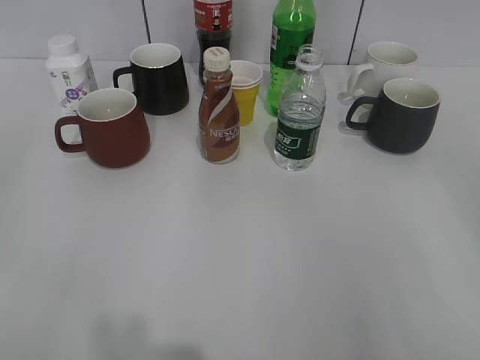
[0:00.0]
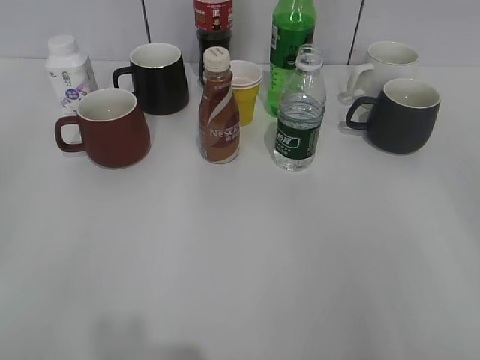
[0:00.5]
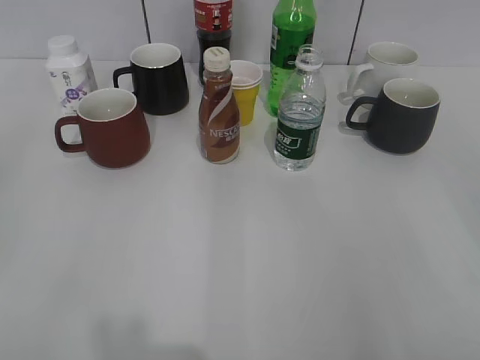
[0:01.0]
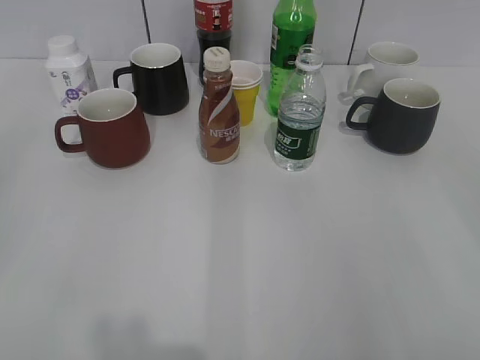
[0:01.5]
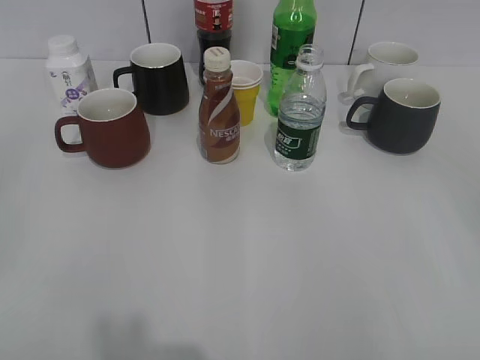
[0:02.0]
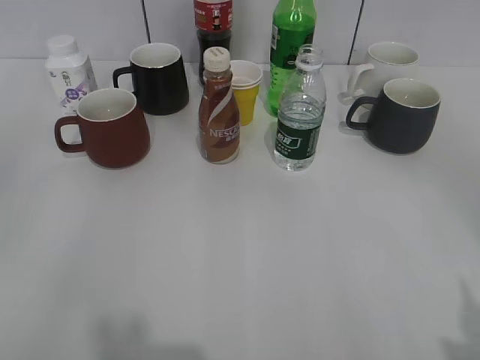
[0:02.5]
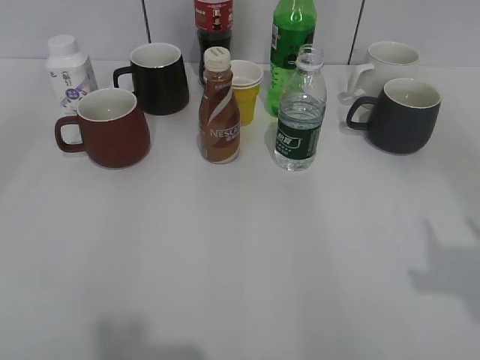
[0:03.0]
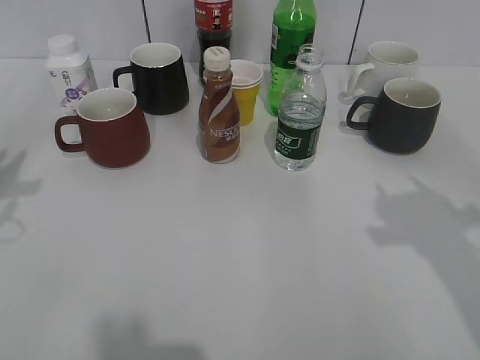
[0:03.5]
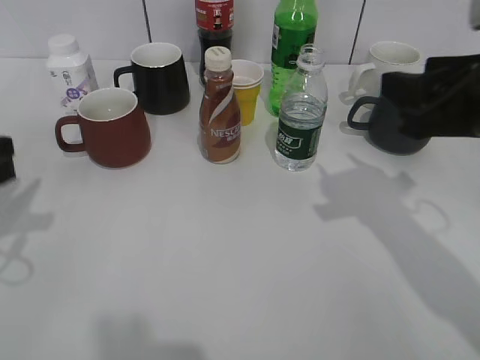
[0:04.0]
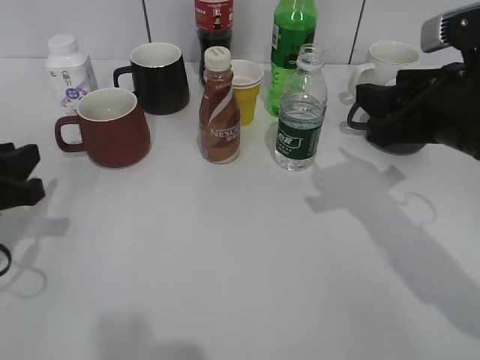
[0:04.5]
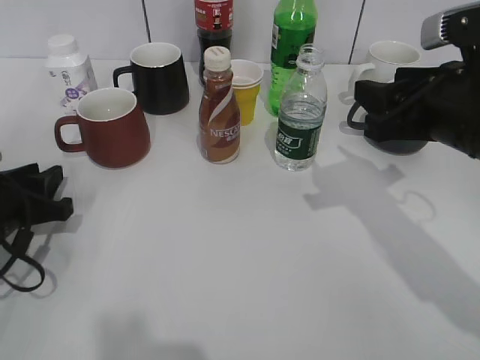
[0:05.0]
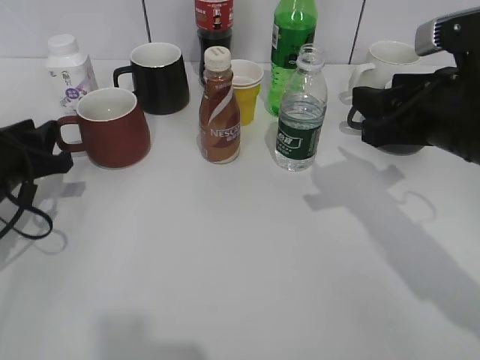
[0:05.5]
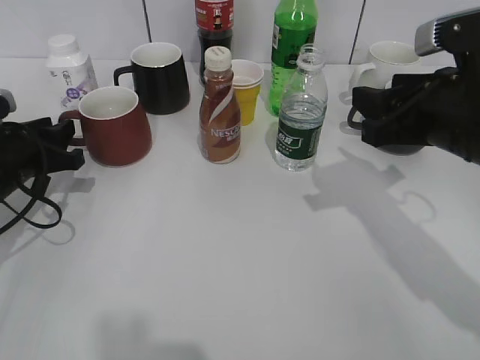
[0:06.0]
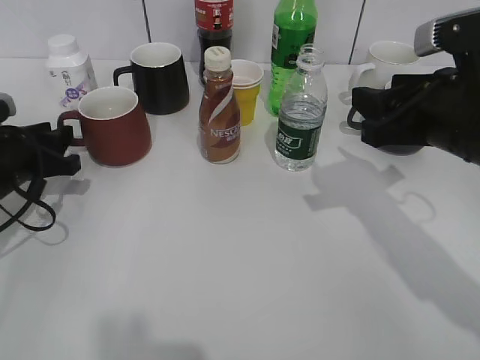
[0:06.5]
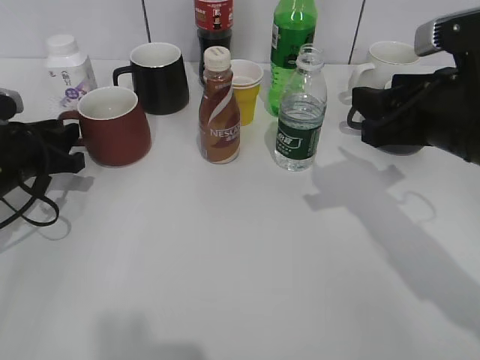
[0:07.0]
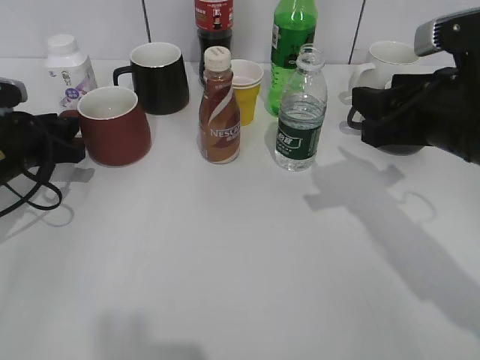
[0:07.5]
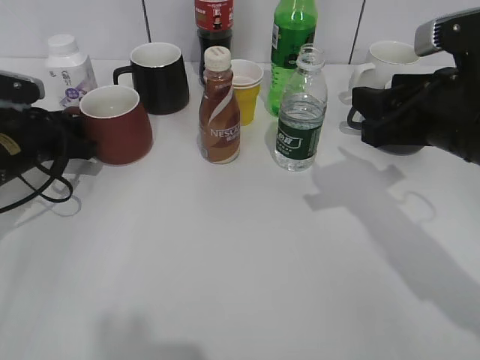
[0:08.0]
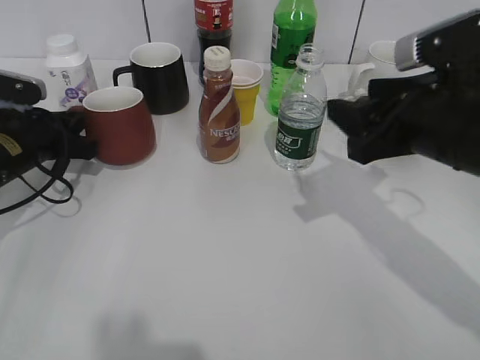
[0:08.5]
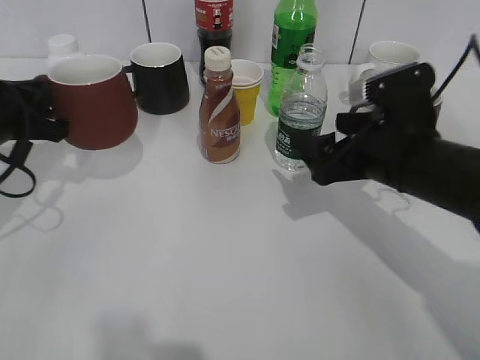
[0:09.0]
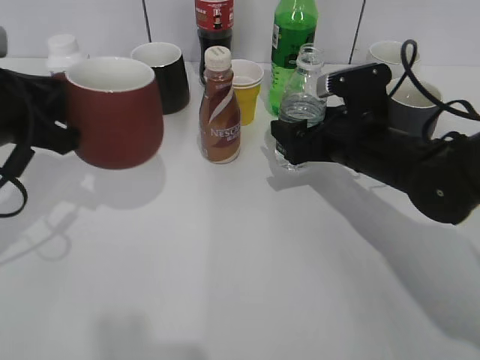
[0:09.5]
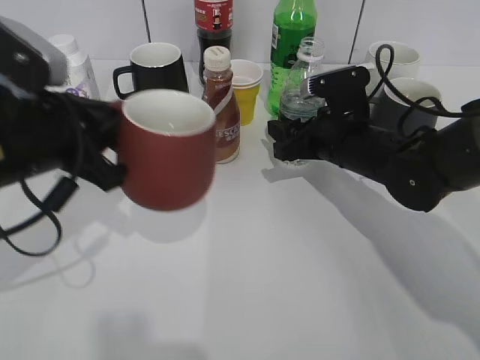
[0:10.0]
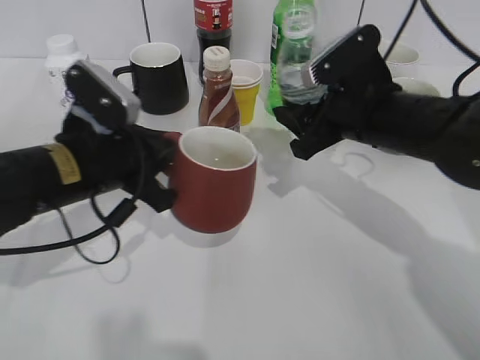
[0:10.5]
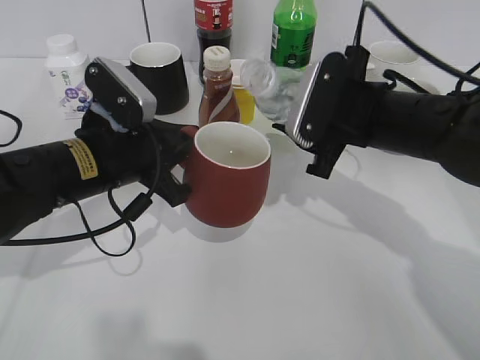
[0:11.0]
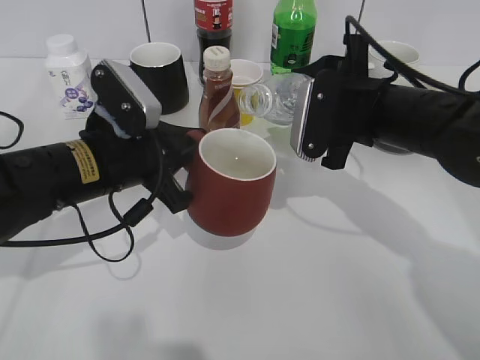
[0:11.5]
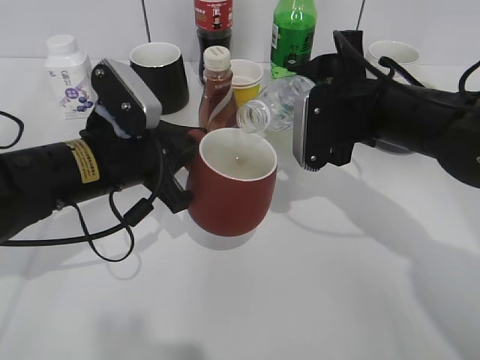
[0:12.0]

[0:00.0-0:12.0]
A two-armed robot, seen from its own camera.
Step, 0:02.0 to 0:08.0: Grasp the red cup with left gripper.
0:02.0 to 0:04.0: The left gripper moves forward, about 20 cm. Meanwhile the right gripper moves forward and to the left, approximately 25 cm.
0:04.0 to 0:06.0: The left gripper shifts approximately 10 cm forward and downward.
0:06.0 to 0:08.0: The grippers move only a little.
0:08.0 to 0:10.0: The right gripper shifts some 15 cm downward, forward and to the left, and opens, then closes once more, while the left gripper goes roughly 15 cm backward, upward and to the right, and closes.
0:10.0 to 0:12.0: The left gripper travels to the right and downward by some 5 cm. Meanwhile the right gripper goes some 5 cm upward.

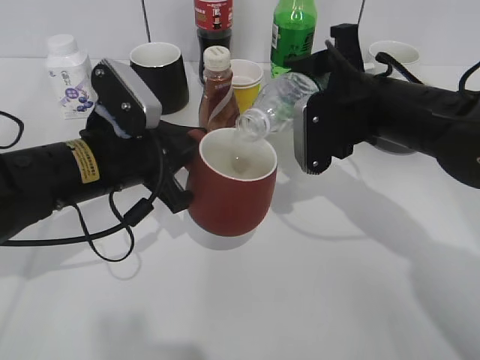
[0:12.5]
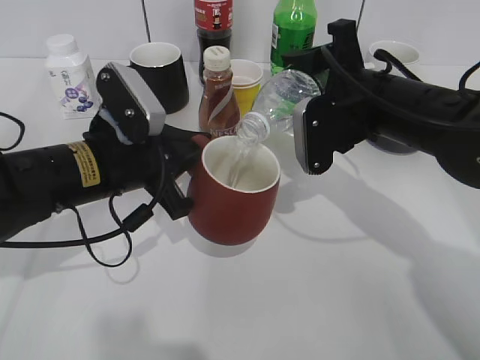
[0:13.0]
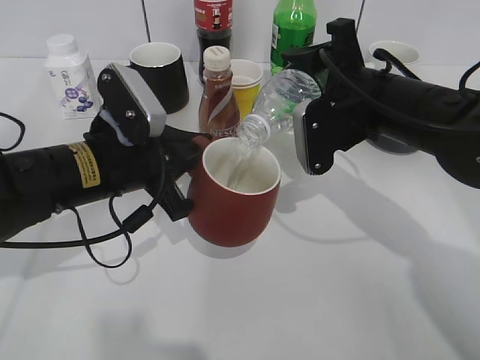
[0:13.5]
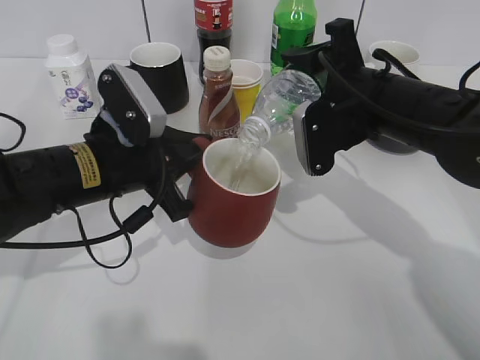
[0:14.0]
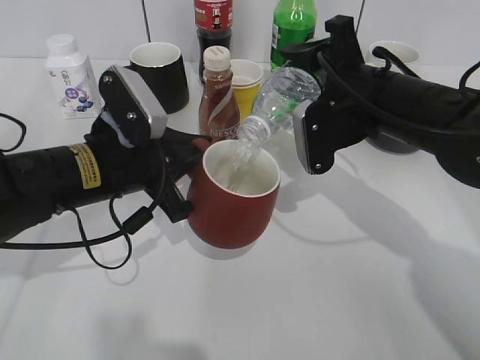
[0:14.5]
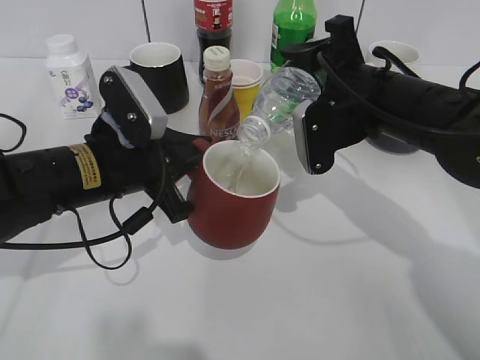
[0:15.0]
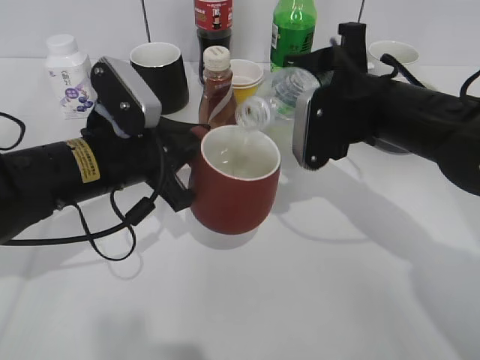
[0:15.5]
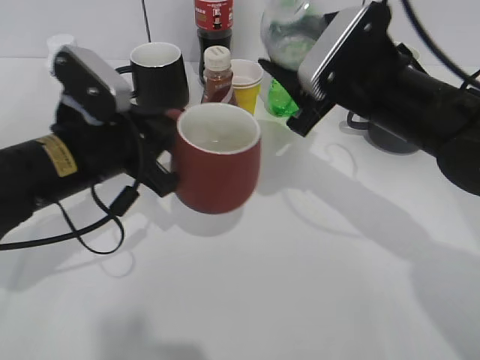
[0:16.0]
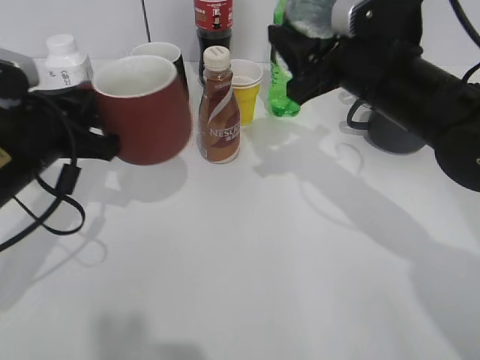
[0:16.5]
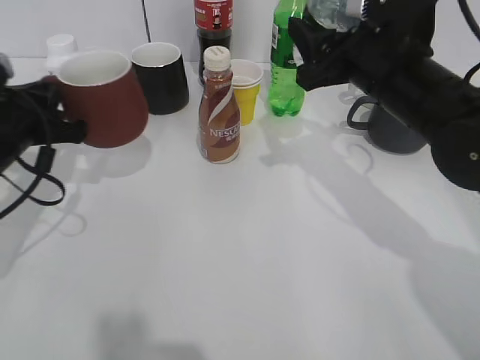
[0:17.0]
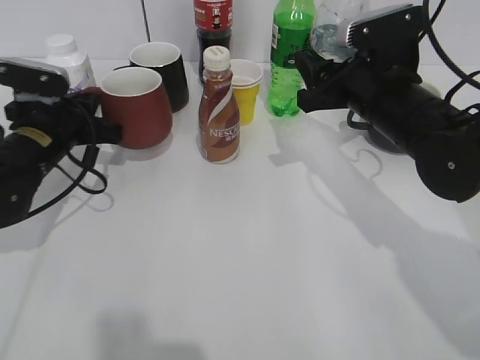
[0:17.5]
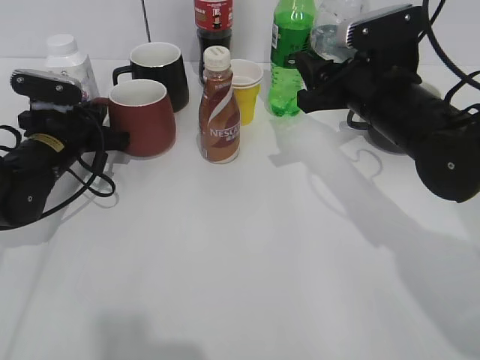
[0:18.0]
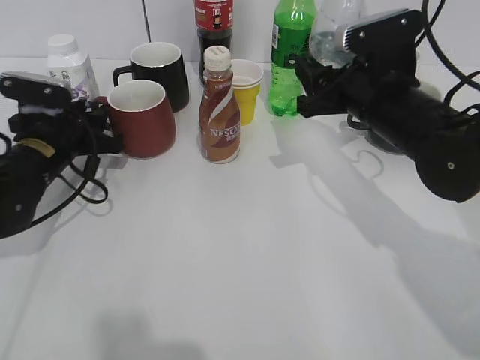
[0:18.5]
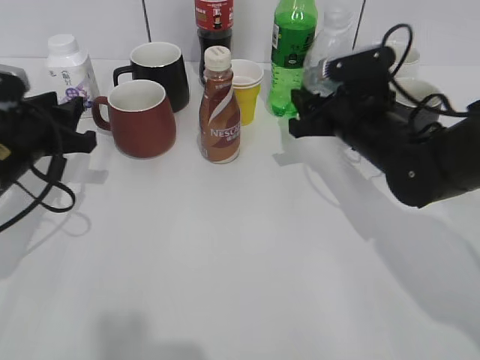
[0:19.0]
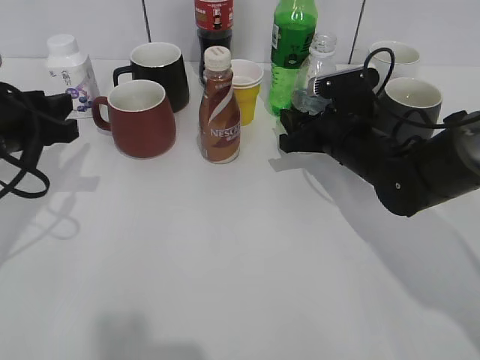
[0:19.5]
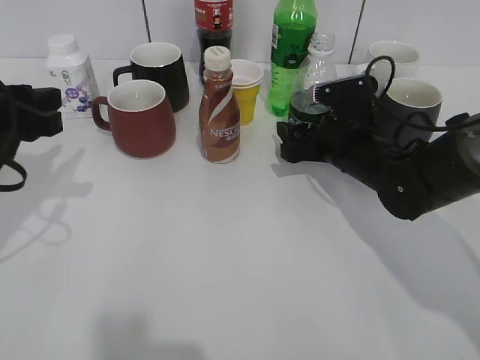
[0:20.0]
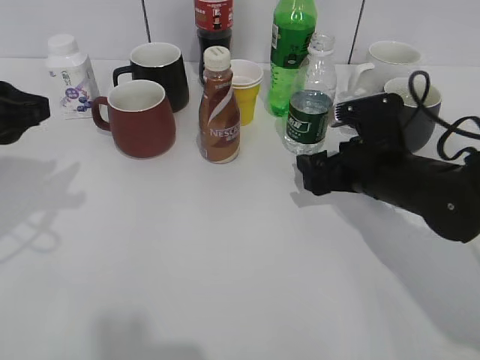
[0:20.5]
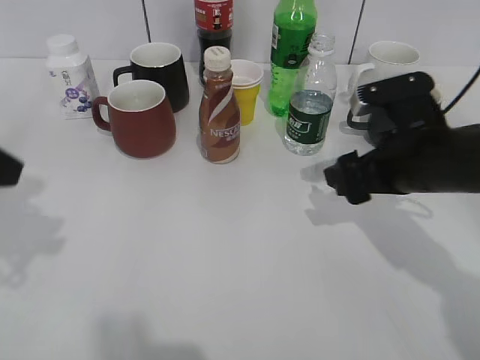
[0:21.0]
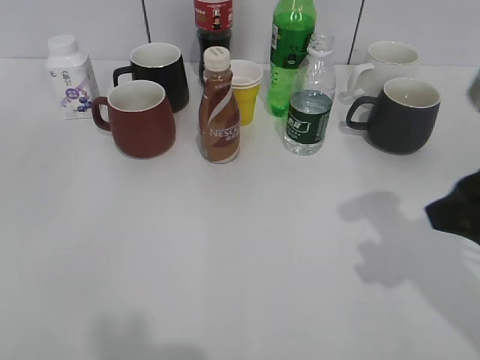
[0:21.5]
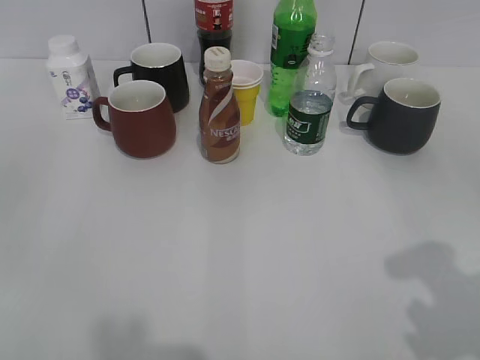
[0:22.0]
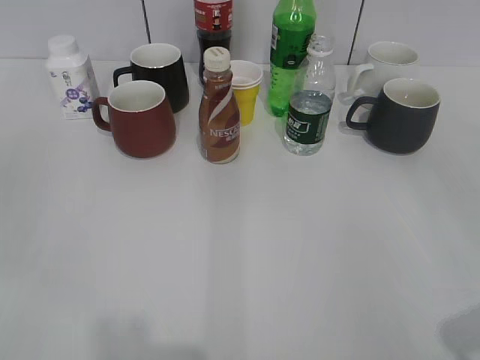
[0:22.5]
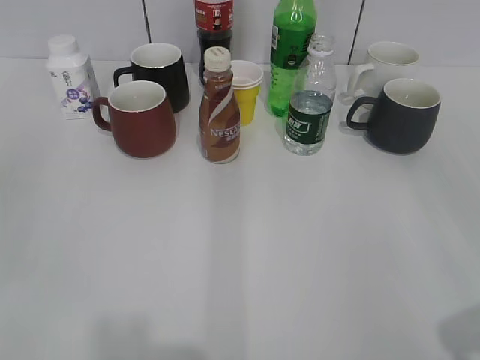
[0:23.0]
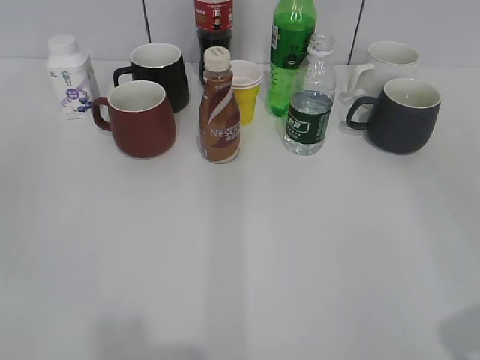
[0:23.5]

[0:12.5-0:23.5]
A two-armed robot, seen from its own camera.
Step, 0:12.5 to 0:15.5: Pour the water from bottle to cup with right gripper.
Step, 0:16.0 to 0:18.0: Place the red cup on the table with left gripper.
Step, 0:19.0 to 0:20.0: Place the water bottle on the table with right gripper.
0:12.5 to 0:14.5: The grippers make only small movements.
0:16.0 to 0:18.0: The left gripper travels forward, to the left and downward by approximately 15 cm.
0:18.0 to 0:20.0: The left gripper moves upward and backward, some 15 cm, and opens its fingers, while the right gripper travels downward by about 10 cm, and opens up.
0:20.0 to 0:21.5: The left gripper travels backward and upward by approximately 20 cm; the right gripper is displaced backward, upward and to the right by about 25 cm.
0:21.5 to 0:23.5: The right gripper heads backward and to the right, covering some 15 cm.

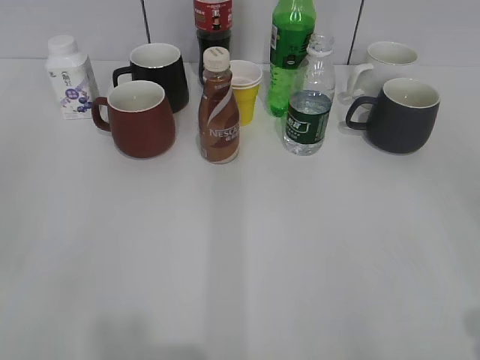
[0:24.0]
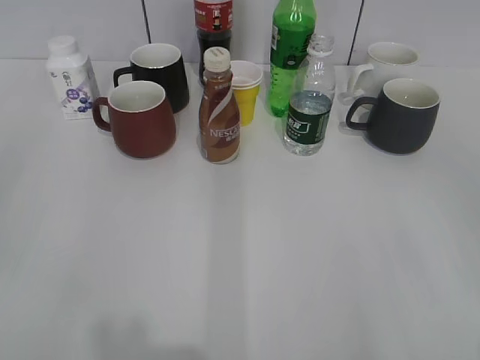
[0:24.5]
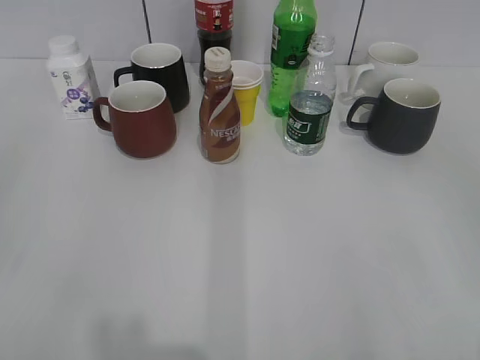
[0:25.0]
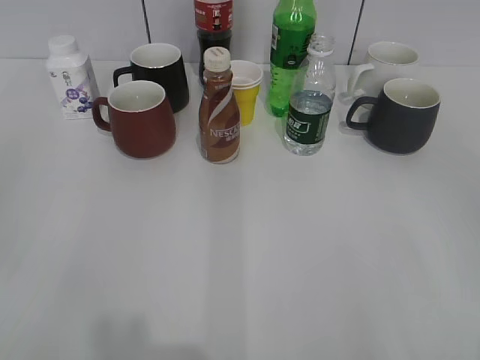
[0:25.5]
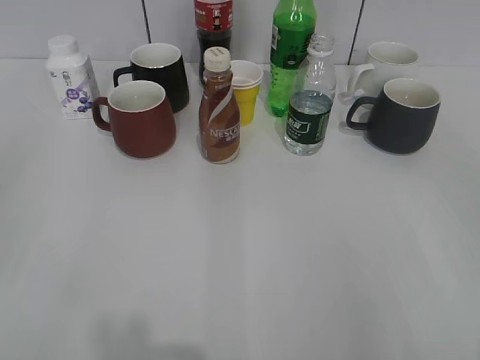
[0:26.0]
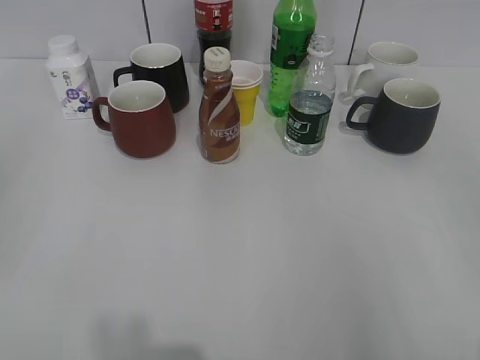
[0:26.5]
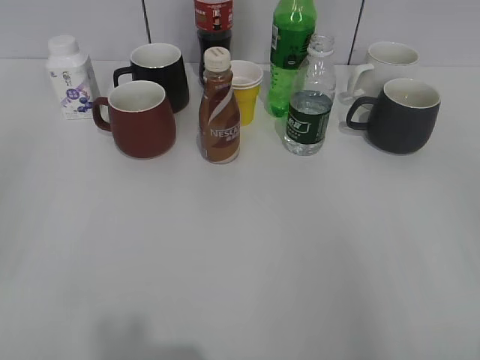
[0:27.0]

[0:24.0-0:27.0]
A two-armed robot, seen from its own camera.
0:25.5 to 0:27.0: Both grippers stay about where they are.
